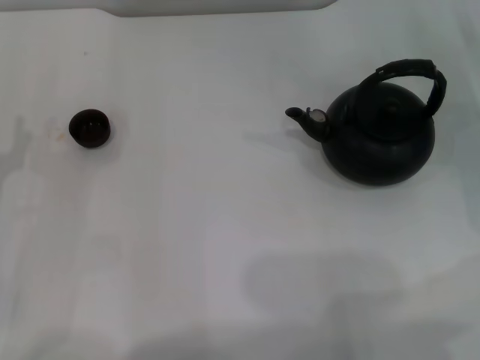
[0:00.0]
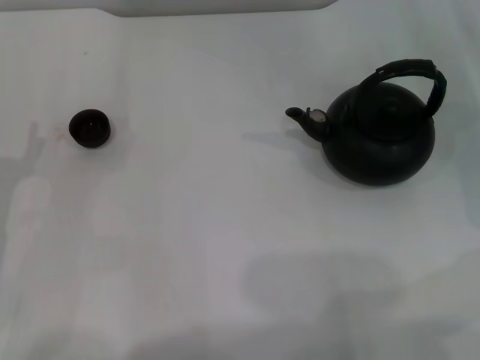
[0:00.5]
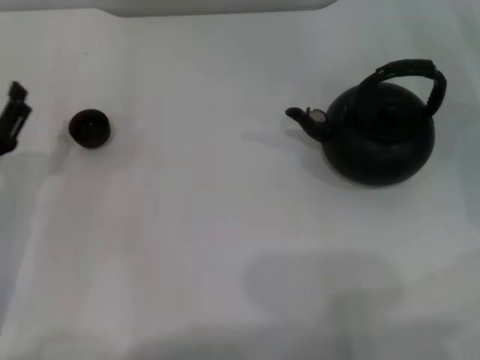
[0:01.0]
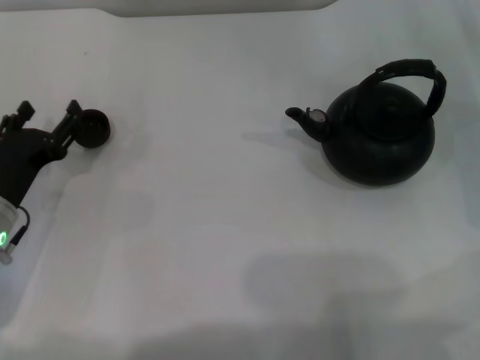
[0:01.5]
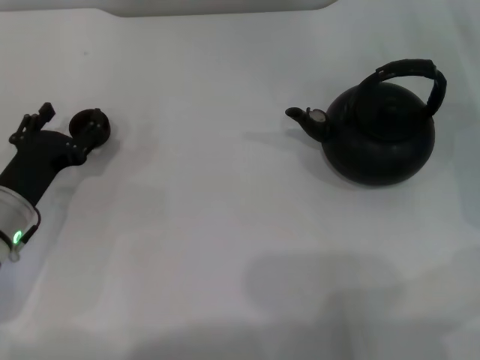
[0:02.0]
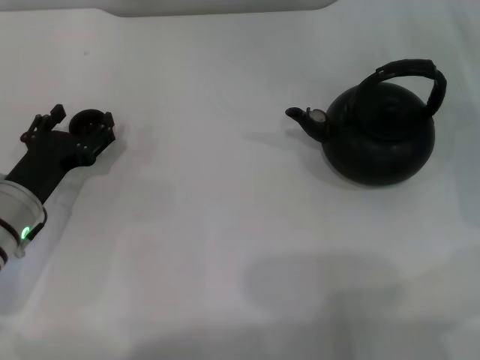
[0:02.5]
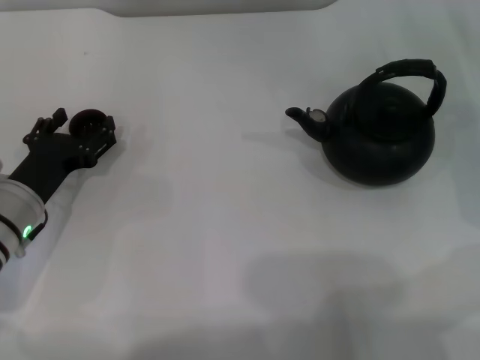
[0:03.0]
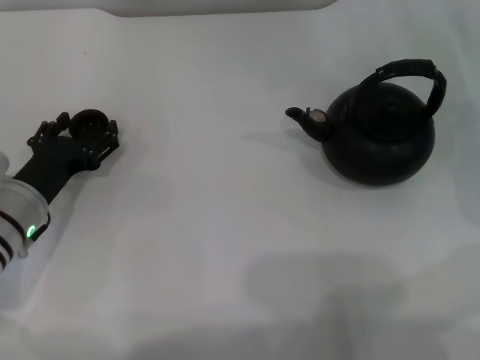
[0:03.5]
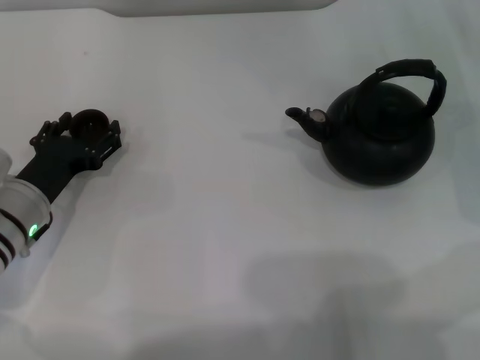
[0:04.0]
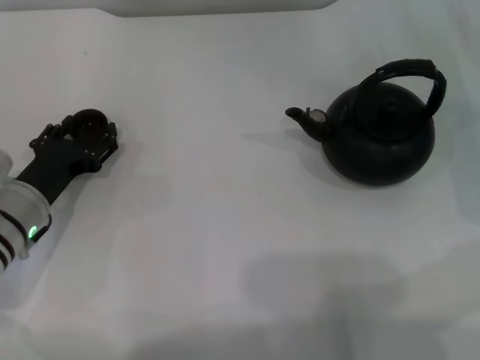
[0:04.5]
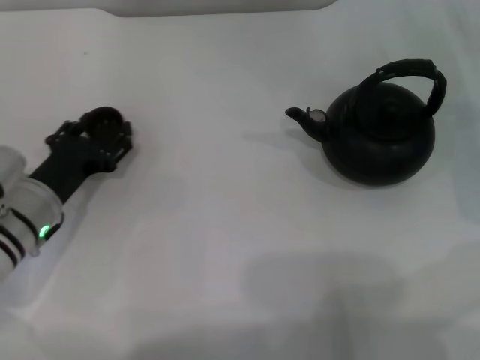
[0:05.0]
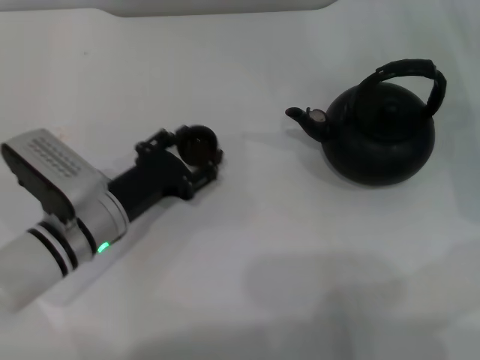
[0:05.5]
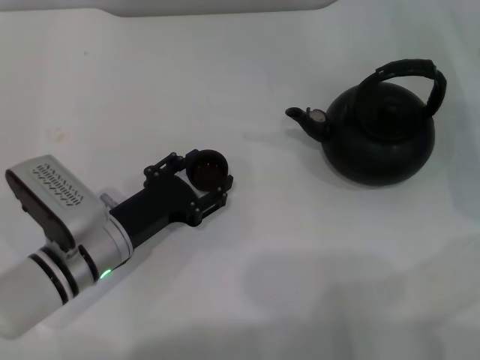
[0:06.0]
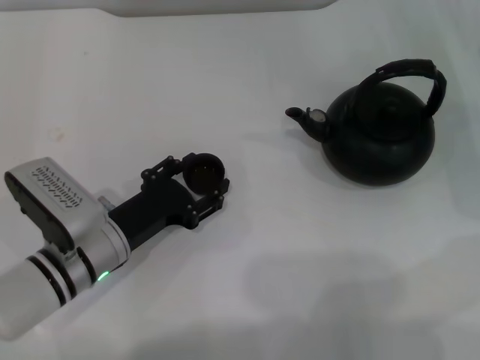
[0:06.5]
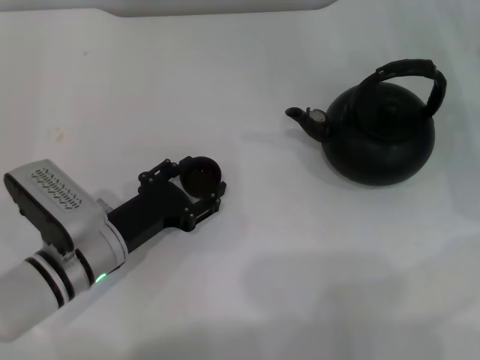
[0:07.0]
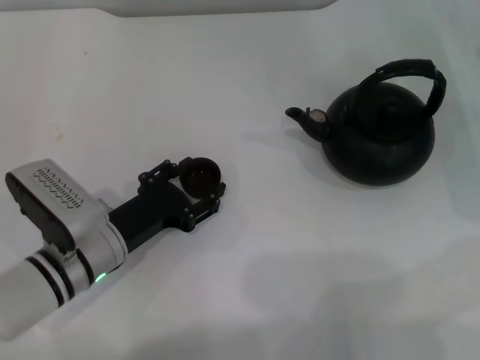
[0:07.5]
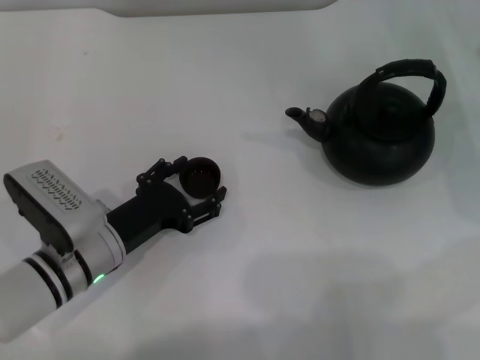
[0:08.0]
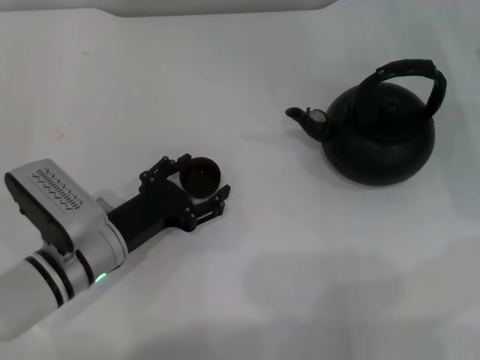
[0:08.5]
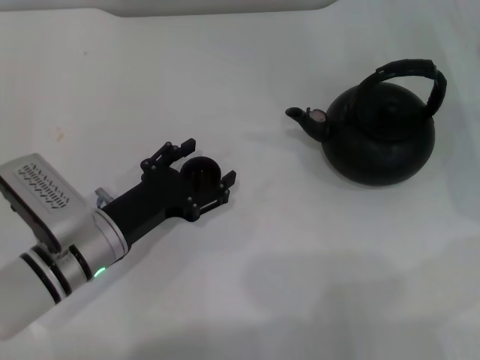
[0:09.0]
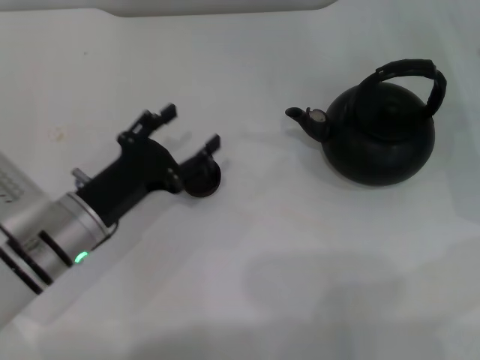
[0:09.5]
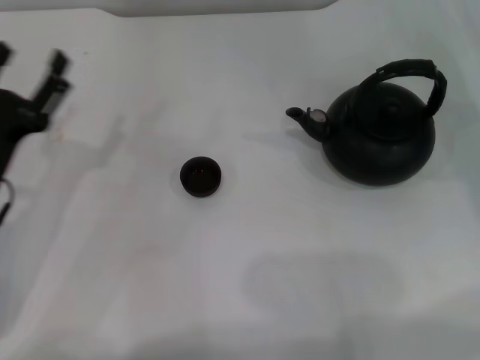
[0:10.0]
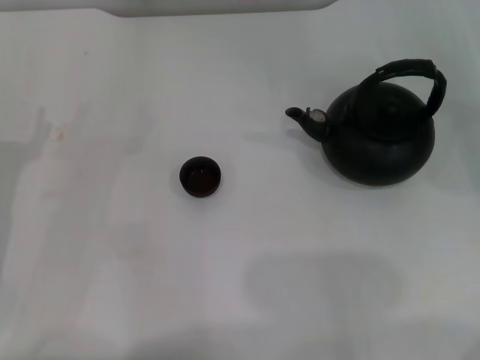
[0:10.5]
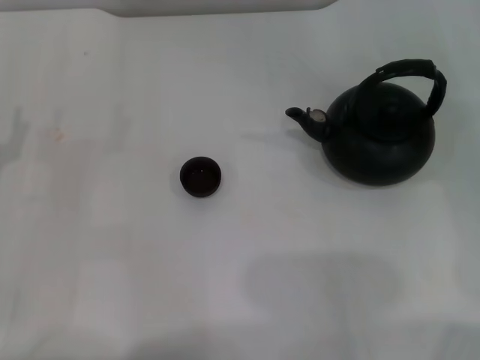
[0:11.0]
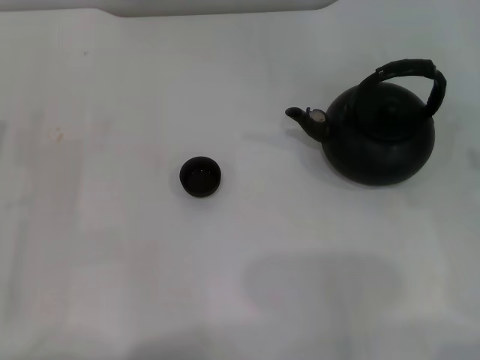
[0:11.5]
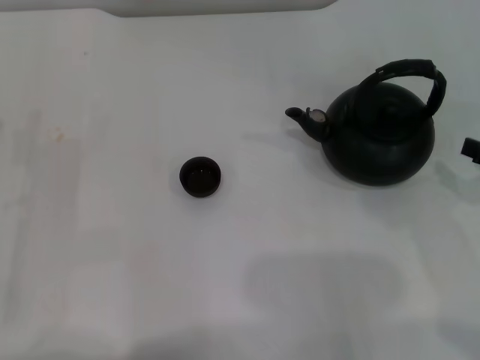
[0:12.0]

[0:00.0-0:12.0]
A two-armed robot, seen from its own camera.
Task of the whole recording: Grasp the handle of the teapot with one hand and pour tea into the teacup.
Step, 0:00.0 to 0:04.5: Pick up the teacup with the left gripper.
Step, 0:05.0 to 0:09.5: Place the teacup in the center of view with the left gripper.
0:00.0 to 0:02.0: The left gripper heads to the right, covering roughly 5 cm.
0:02.0 to 0:04.0: The grippers move only a little.
0:04.0 to 0:06.0: The left gripper shifts some 5 cm to the right, and closes up.
0:06.0 to 0:08.0: The left gripper opens up.
0:08.0 to 0:10.0: The left gripper shifts roughly 10 cm to the left and upward, and opens up.
0:10.0 to 0:12.0: The left gripper shifts some 5 cm to the left.

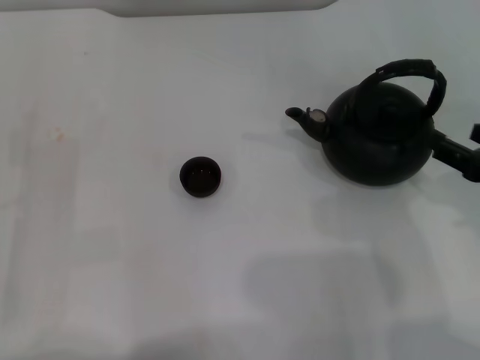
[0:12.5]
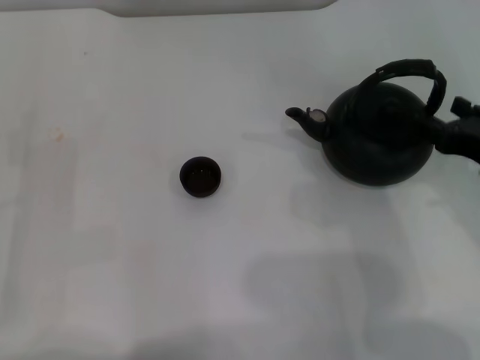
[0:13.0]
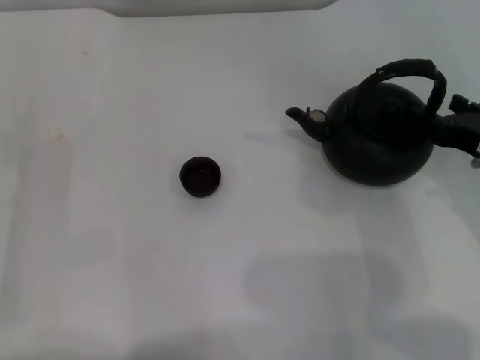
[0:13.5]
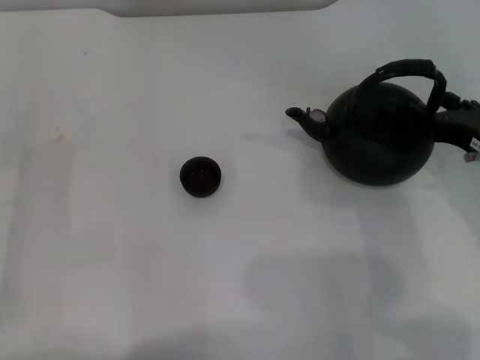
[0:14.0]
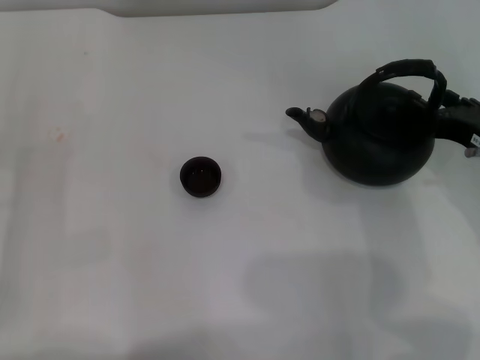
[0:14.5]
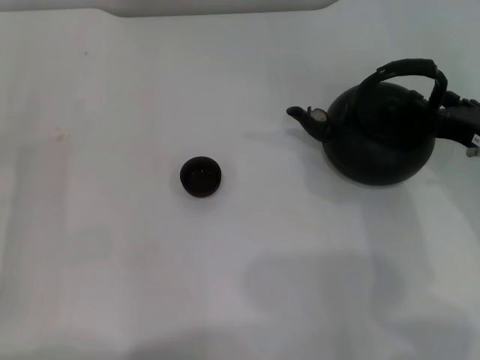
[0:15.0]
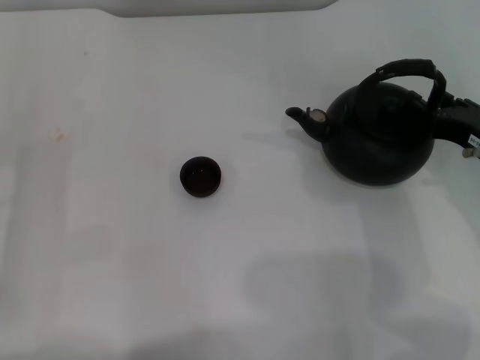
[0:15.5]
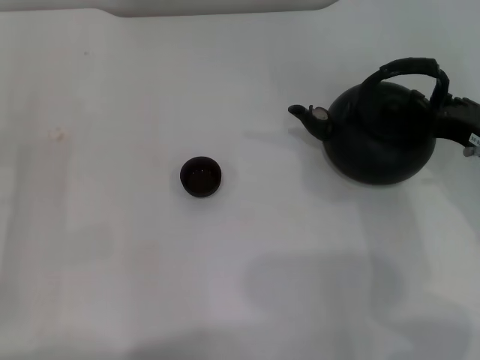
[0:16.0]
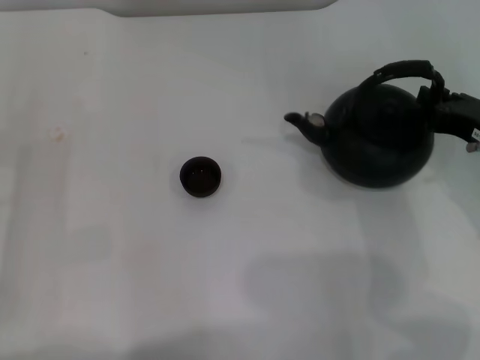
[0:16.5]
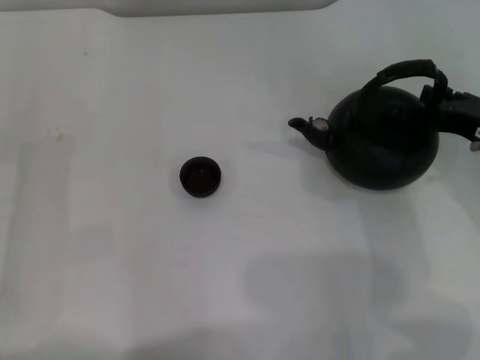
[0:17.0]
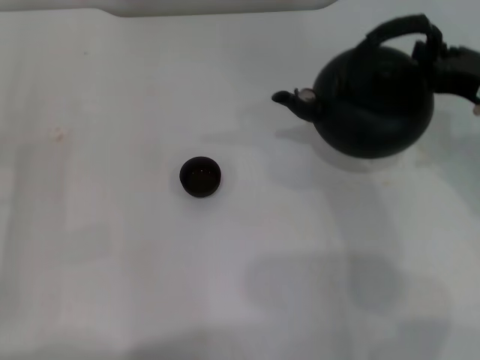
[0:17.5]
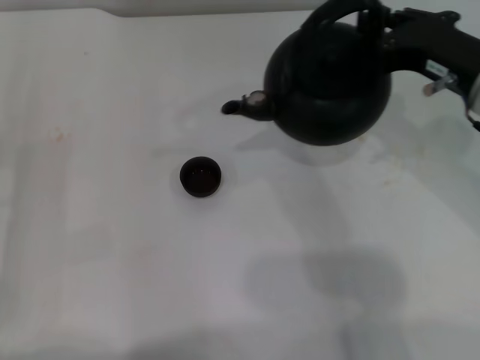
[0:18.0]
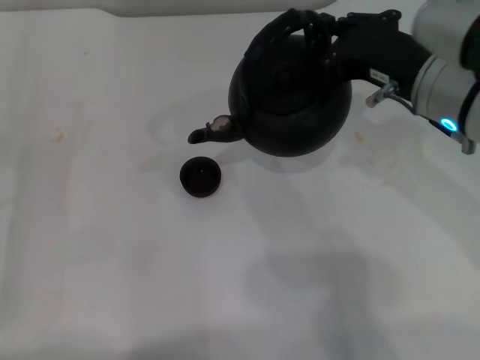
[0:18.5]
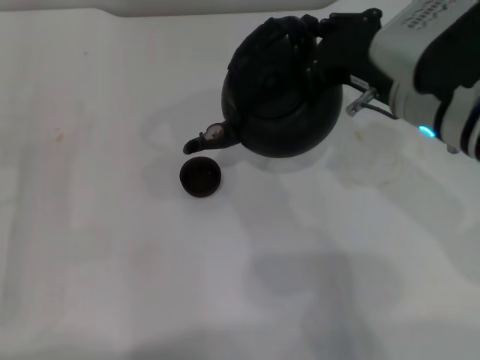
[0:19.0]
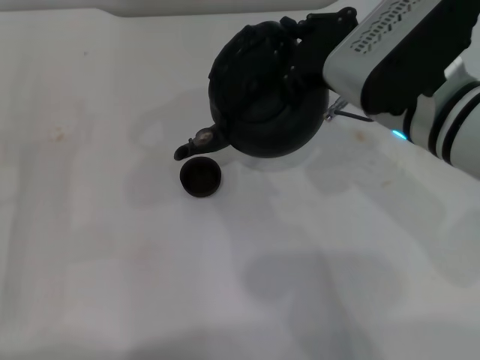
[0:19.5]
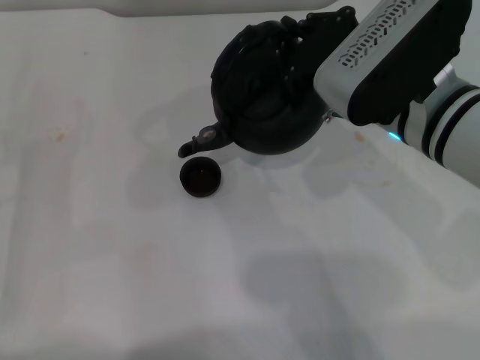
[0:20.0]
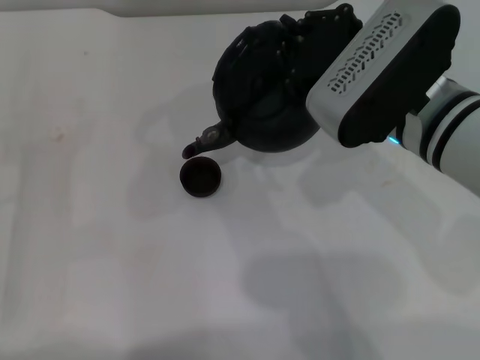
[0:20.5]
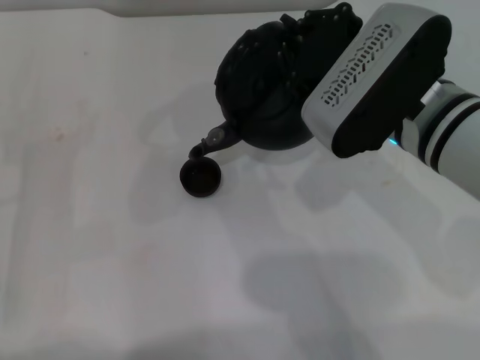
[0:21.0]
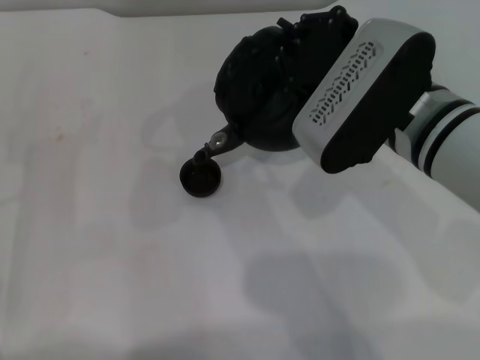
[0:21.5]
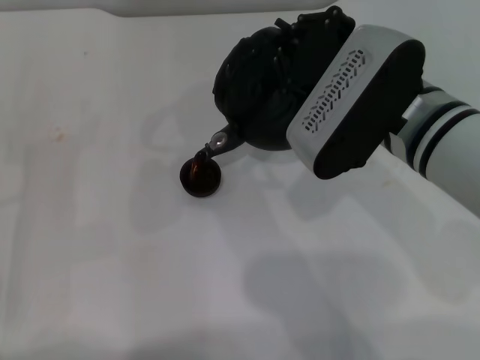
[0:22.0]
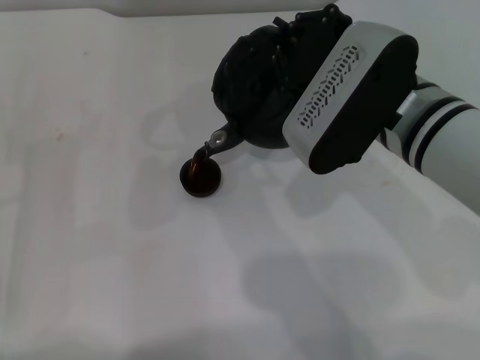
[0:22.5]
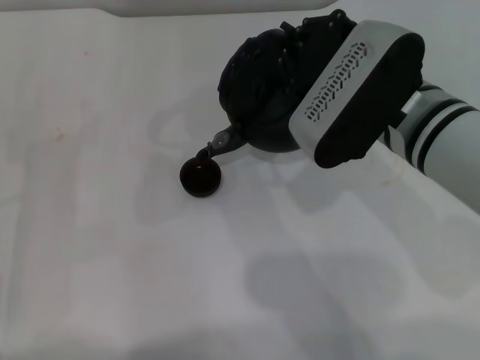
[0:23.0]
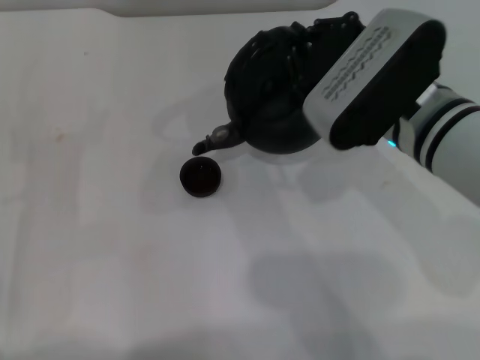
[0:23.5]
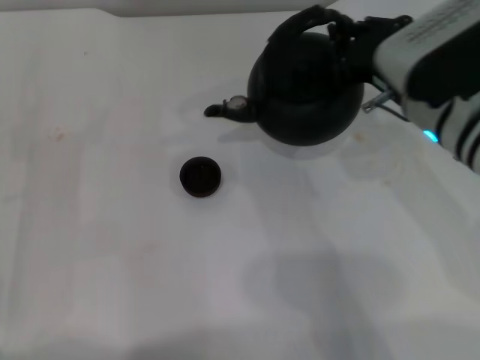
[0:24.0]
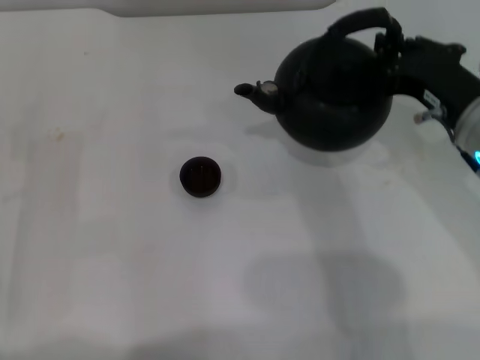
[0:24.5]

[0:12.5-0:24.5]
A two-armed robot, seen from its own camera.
Task of the whole recording: Grasp the handle of the teapot with one hand and pour tea into the teacup.
Step, 0:12.5 to 0:17.5: Pick up the teapot with the right gripper.
Step, 0:18.0 to 0:23.5: Pour tea into the teacup with the right gripper.
0:12.5 to 0:14.5: The right gripper travels forward by some 5 cm.
0:14.5 to 0:16.5: The right gripper closes its fingers.
0:16.5 to 0:18.5: The right gripper travels to the left and upward by roughly 10 cm.
0:20.5 to 0:22.5: There are only small adjustments of the grippers.
0:22.5 to 0:24.5: The right gripper moves to the right, about 10 cm.

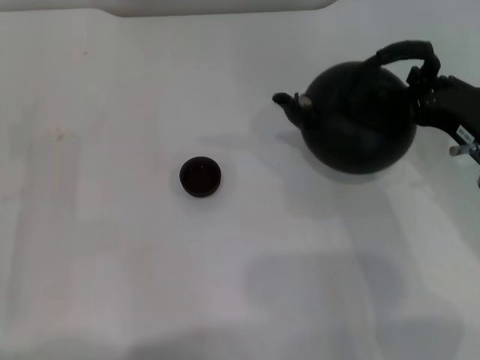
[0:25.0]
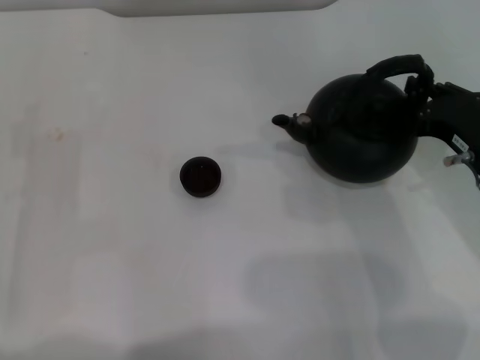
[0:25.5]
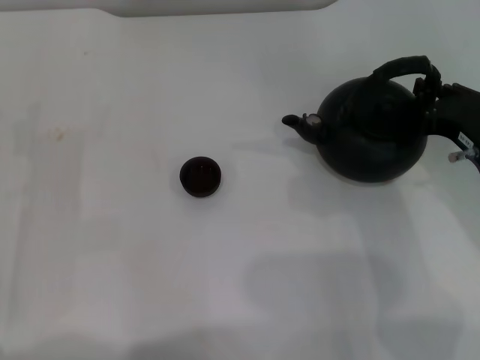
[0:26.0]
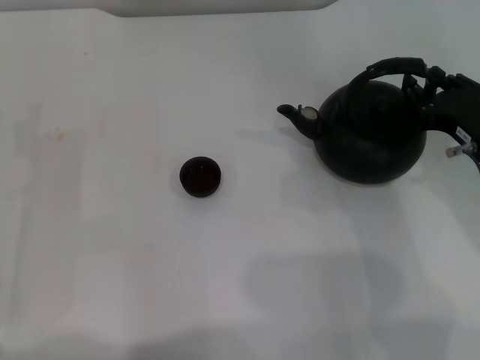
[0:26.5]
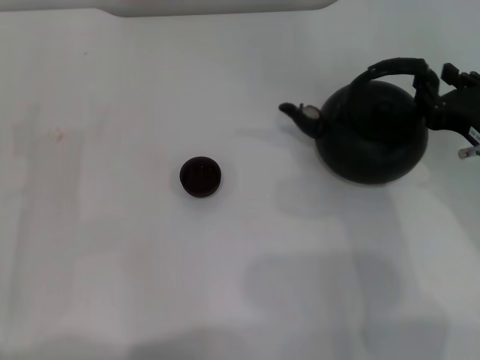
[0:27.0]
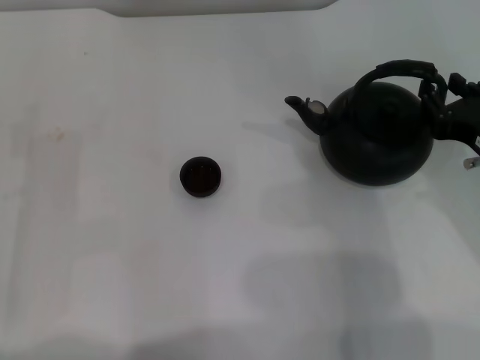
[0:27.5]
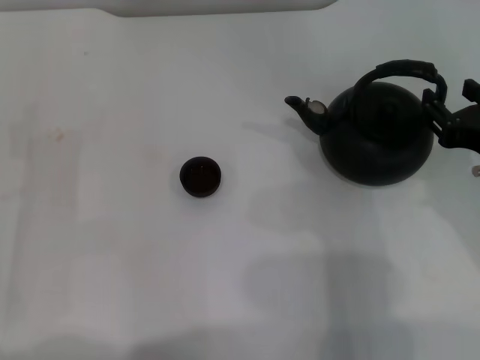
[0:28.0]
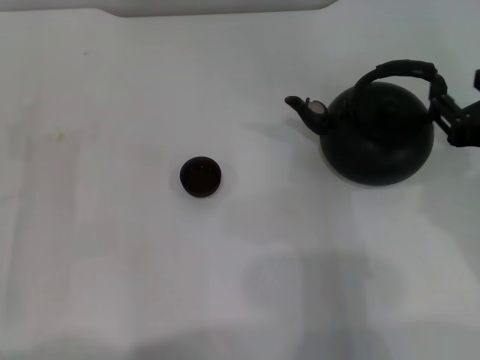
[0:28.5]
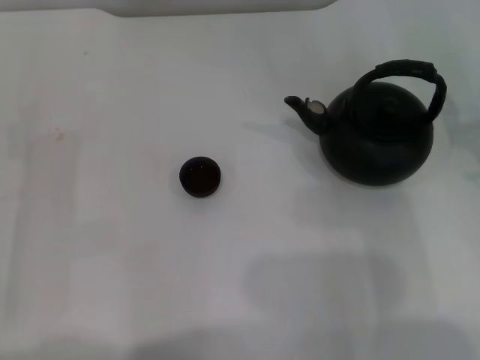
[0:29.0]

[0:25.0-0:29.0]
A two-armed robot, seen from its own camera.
Task of the whole recording: Grasp the handle of the teapot with one hand and pour tea into the teacup.
Step, 0:25.0 to 0:28.5: Put down the teapot with the right gripper.
0:25.0 to 0:27.0: The right gripper opens its fingers.
0:27.0 to 0:29.0: The right gripper changes place by some 5 cm.
